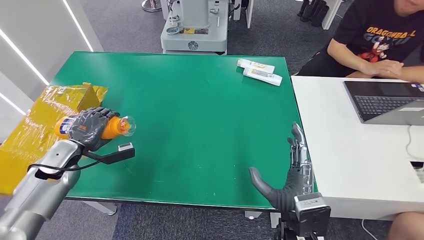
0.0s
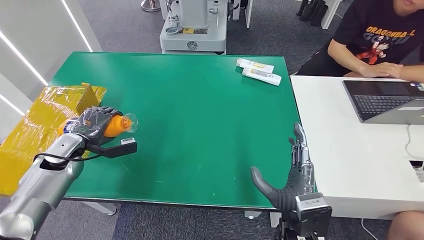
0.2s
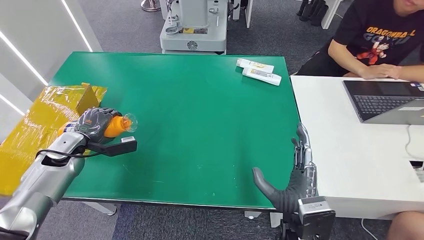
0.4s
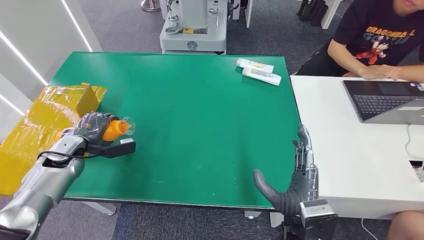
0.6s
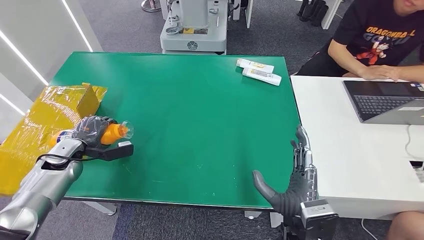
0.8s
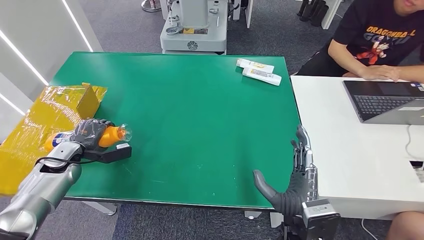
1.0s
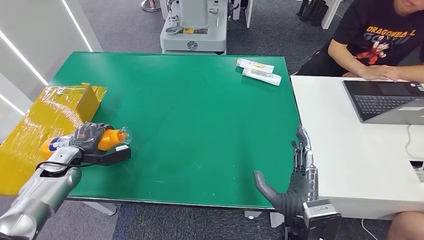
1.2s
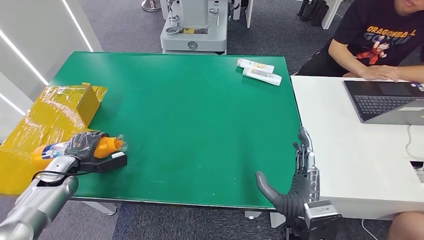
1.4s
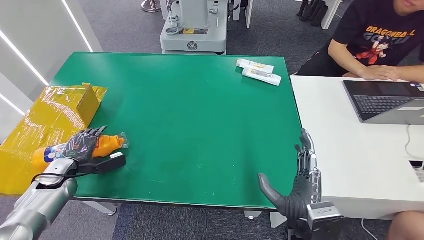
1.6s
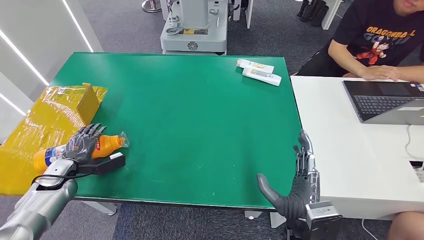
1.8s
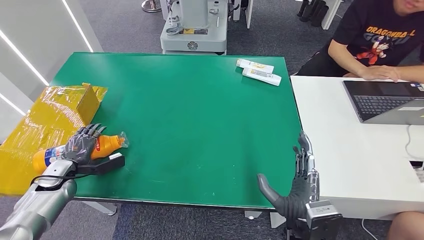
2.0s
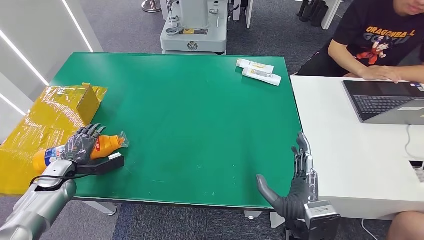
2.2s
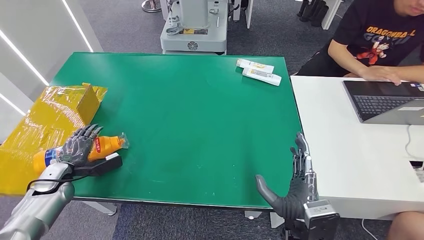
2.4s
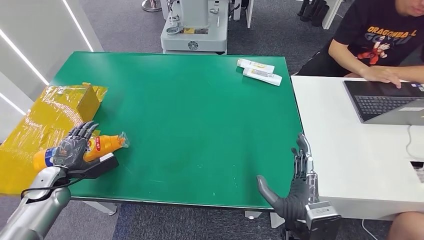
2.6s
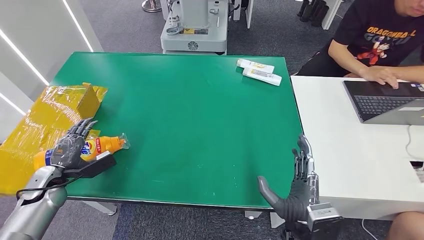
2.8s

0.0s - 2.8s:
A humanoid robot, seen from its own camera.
Step, 0.0s - 2.8s: Turn the bottle to the front side.
0.0s - 1.4s: The left hand shifts about 5 cm downward.
